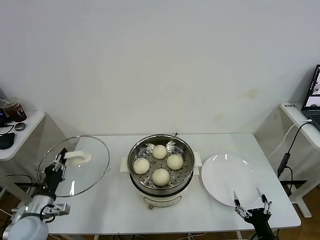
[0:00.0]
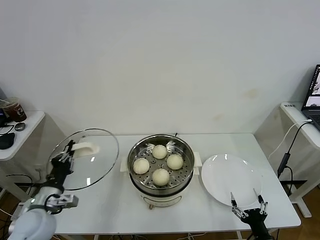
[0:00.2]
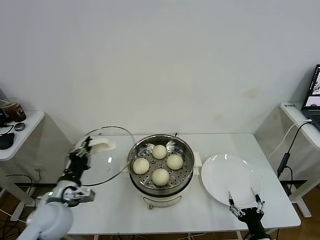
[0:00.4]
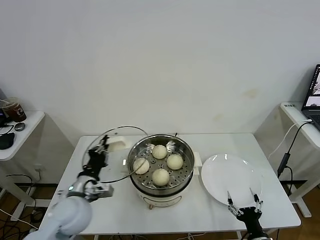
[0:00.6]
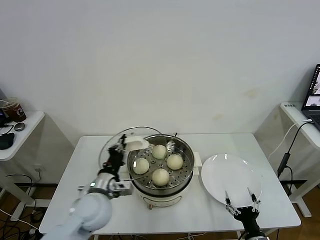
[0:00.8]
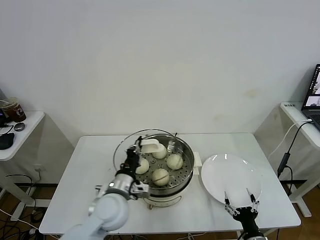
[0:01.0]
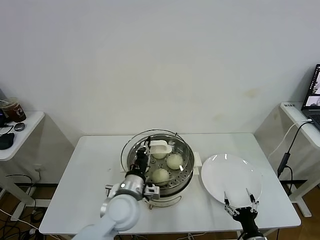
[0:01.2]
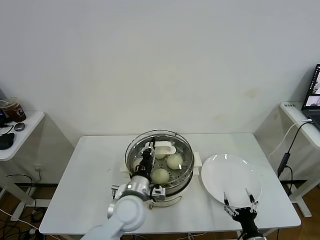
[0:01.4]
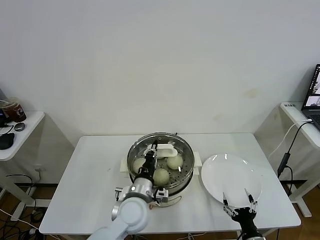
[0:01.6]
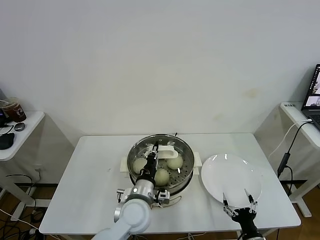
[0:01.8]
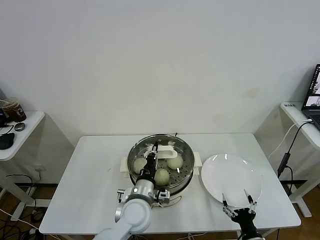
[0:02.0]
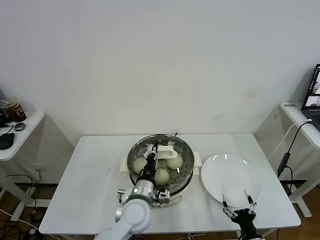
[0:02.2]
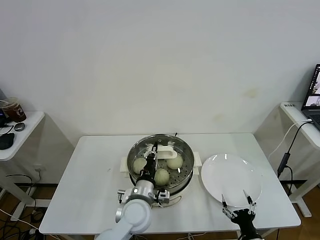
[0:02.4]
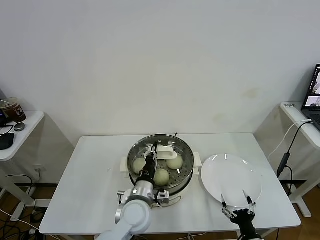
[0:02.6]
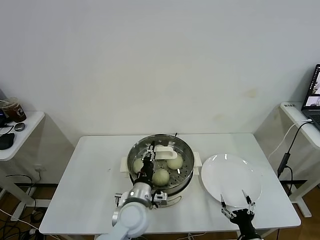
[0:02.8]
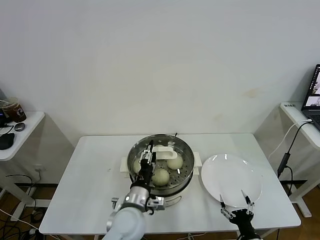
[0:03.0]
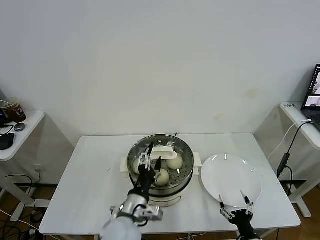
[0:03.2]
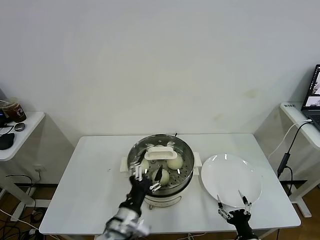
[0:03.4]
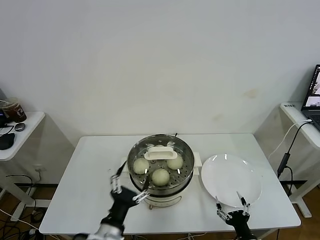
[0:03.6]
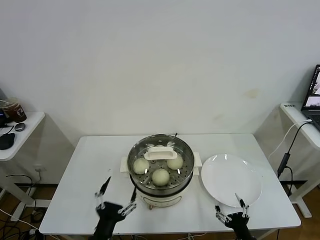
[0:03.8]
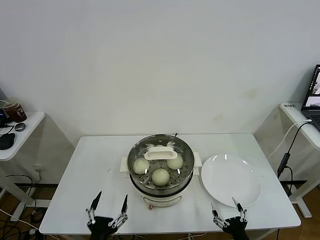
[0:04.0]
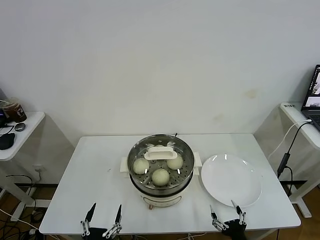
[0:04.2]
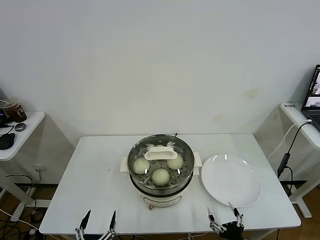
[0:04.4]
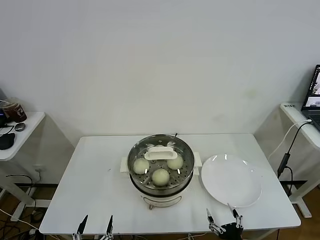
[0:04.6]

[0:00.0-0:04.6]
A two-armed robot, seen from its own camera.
Task of the whole recording: take steamed baozi put them in steamer.
Step, 0:00.0 to 0:03.0: Place the pot lid on the steamer with left gripper.
0:00.0 to 0:01.6: The right gripper ends up roughly 5 cm from where it was, while the left gripper shifts approximately 30 cm to the right.
0:01.6 to 0:03.0: The left gripper opens.
0:03.0 to 0:04.6: The right gripper moves some 5 cm; the left gripper travels backward and to the left by some 25 cm, and opens up.

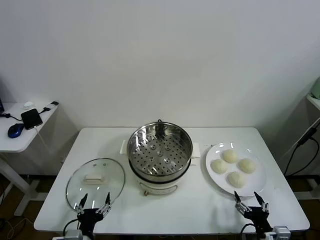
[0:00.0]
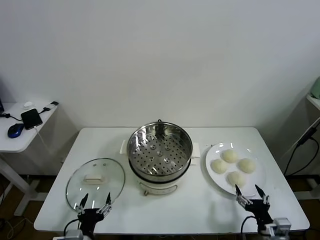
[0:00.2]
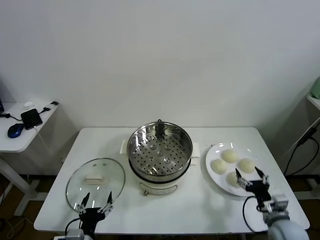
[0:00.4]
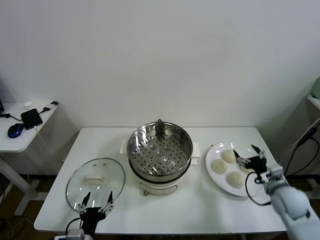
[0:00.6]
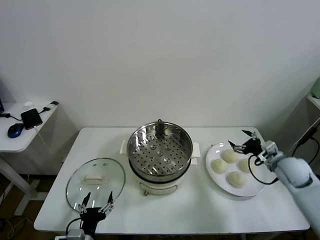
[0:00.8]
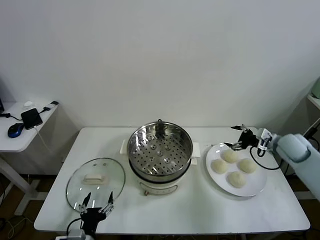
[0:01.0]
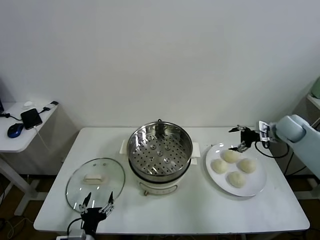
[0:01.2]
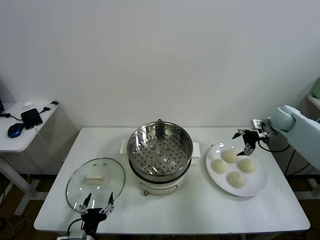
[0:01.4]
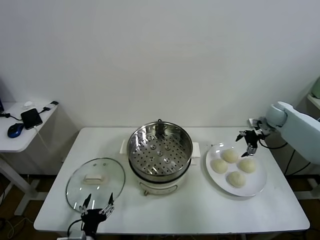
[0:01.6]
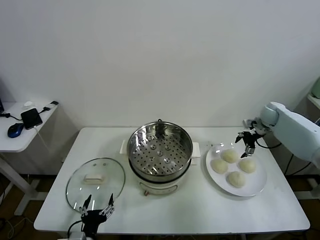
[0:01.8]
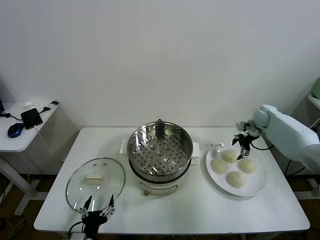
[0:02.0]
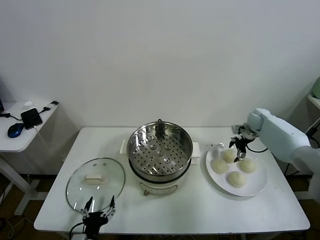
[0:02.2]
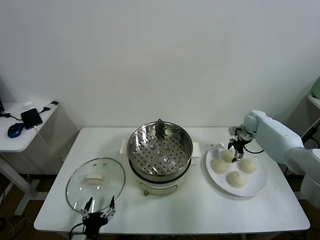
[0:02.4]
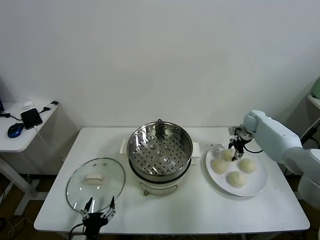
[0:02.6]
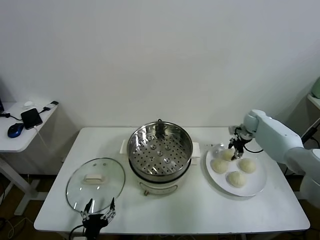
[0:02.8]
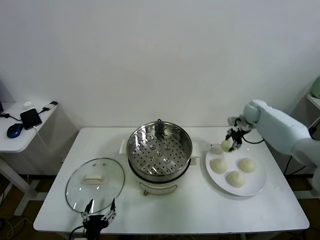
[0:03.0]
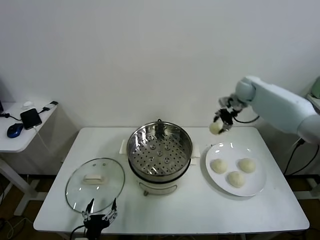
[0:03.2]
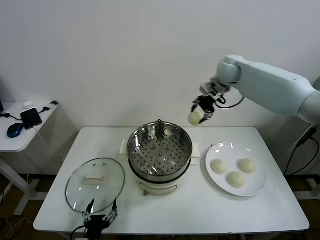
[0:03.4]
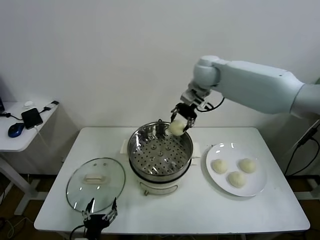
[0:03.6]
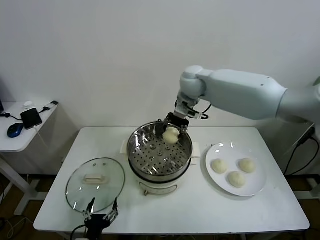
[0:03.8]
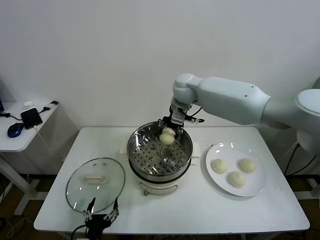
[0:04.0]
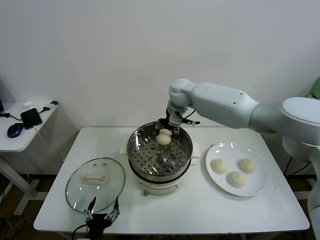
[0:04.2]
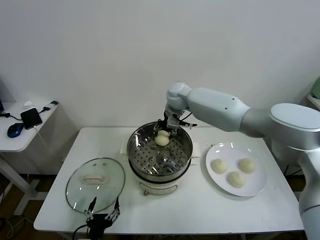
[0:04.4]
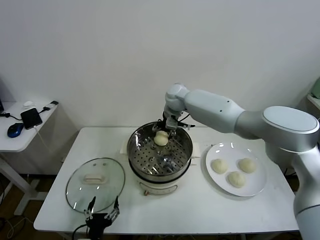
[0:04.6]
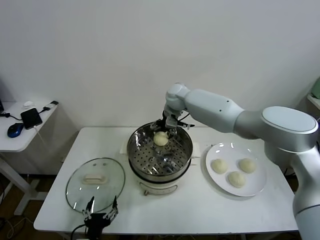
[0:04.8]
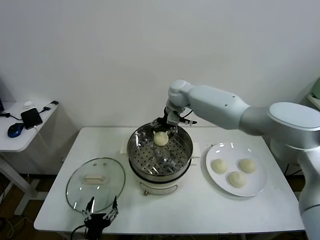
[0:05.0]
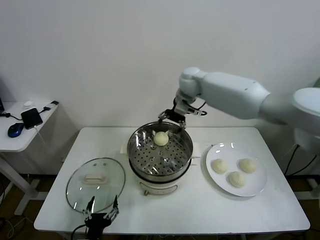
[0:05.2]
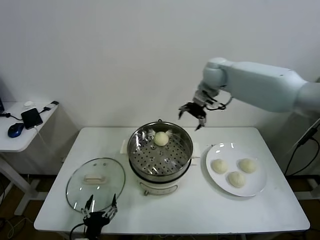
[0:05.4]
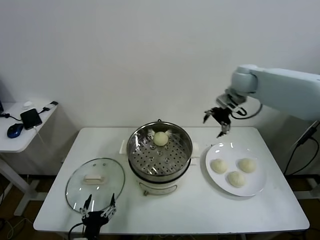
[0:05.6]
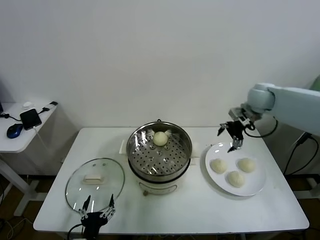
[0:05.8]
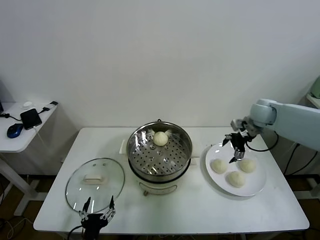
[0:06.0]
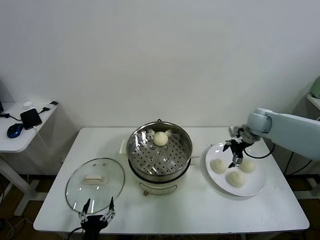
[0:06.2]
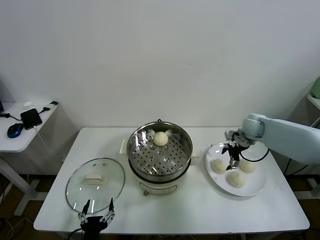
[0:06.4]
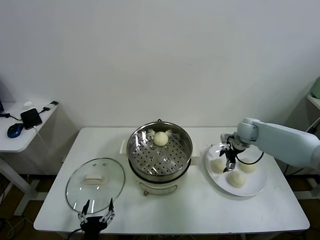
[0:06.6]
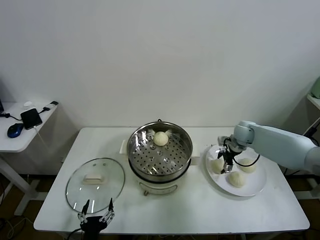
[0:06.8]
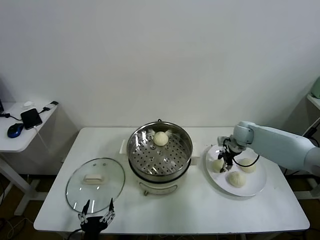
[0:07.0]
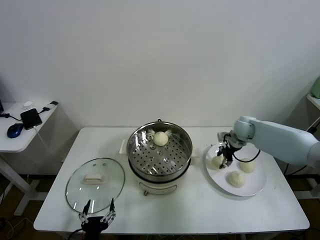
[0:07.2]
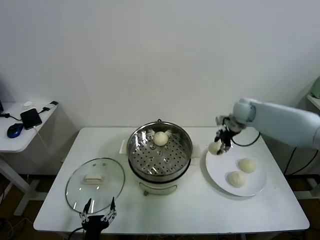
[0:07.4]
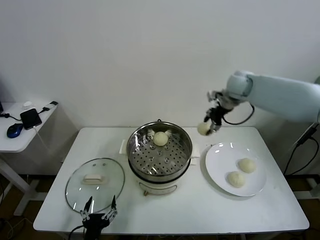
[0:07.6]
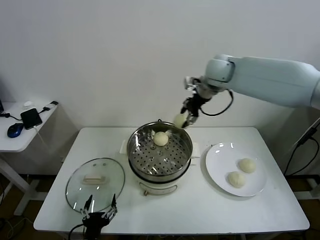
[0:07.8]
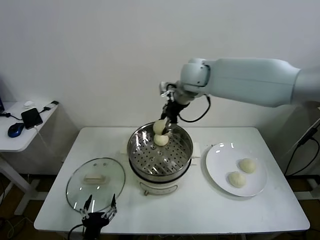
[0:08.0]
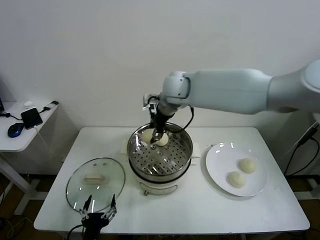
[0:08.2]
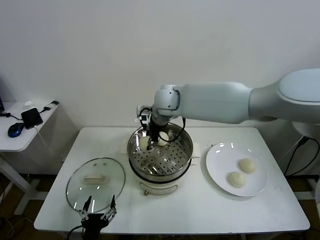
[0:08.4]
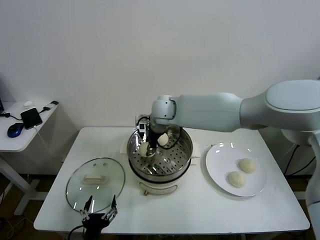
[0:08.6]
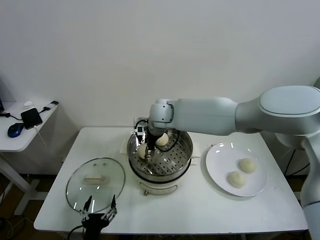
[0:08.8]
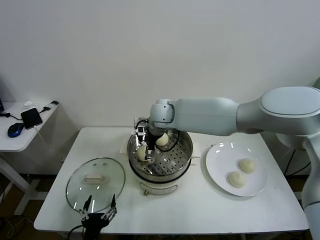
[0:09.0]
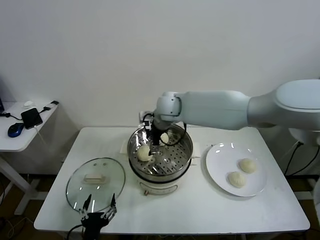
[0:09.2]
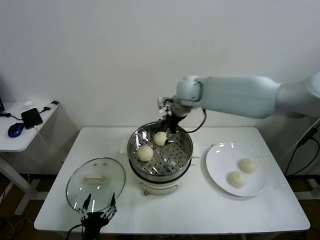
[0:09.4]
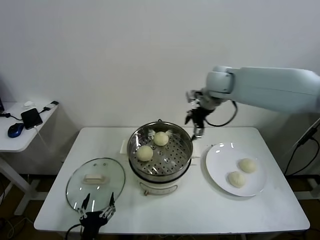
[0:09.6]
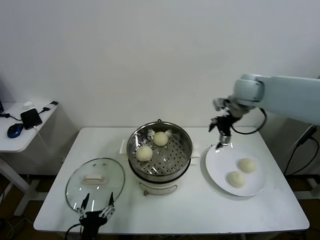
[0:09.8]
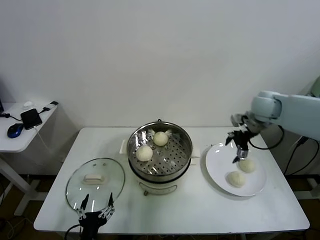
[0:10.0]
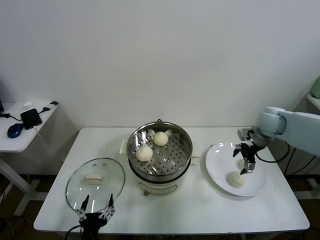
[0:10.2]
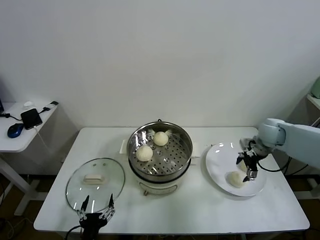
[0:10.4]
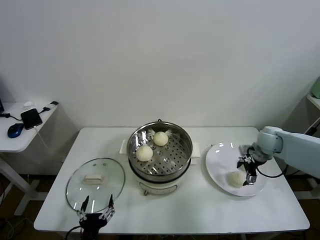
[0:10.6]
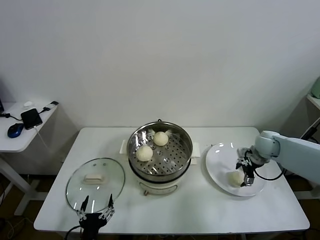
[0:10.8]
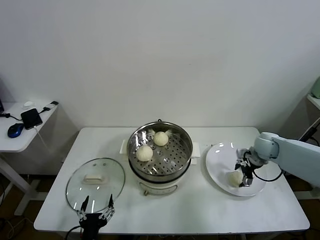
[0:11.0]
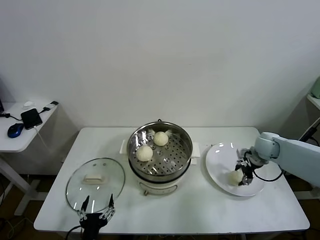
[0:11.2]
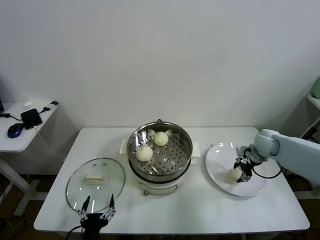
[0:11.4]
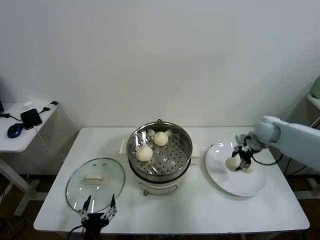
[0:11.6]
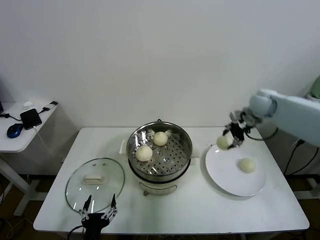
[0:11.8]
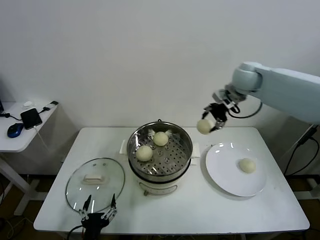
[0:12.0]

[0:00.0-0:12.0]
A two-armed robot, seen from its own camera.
Task of the whole recording: take steamed baozi put them in steamer.
Step, 0:00.0 to 0:02.6: Grasp the baozi in the plate with right gripper.
Step, 0:02.8 to 0:05.0: Place the baozi on the steamer with right gripper.
Step, 0:05.2 to 0:07.0: Grasp the baozi in the plate with right gripper.
Step, 0:07.2 to 0:09.0: Place the baozi on the steamer with right gripper.
Step, 0:09.2 to 0:11.2: Grasp the baozi in the plate with right gripper.
0:01.6 to 0:03.0: The right gripper goes approximately 10 cm to the left, and closes.
0:03.0 to 0:04.4: The right gripper heads to the left, covering some 30 cm.
0:04.4 to 0:06.0: The right gripper shifts approximately 30 cm to the right, and opens.
0:06.0 to 0:07.6: The right gripper moves upward and to the left, roughly 20 cm, and closes up.
0:07.6 to 0:09.0: The right gripper goes roughly 25 cm to the left and downward, and opens up.
0:09.0 to 0:10.4: The right gripper travels to the right by approximately 40 cm.
0:10.4 to 0:12.0: The right gripper travels upward and to the left by some 25 cm, and closes.

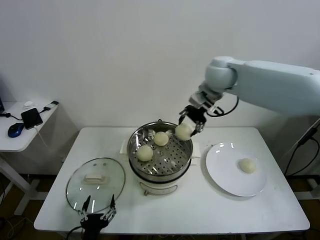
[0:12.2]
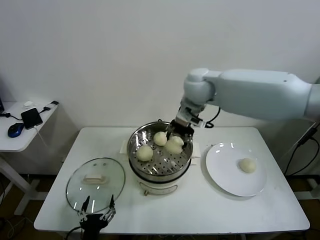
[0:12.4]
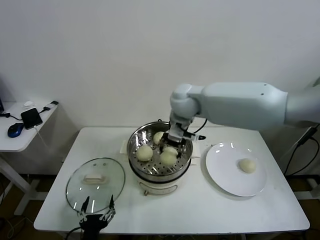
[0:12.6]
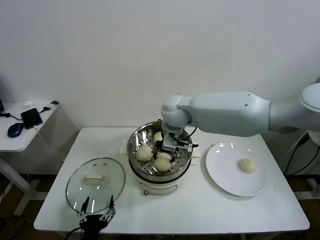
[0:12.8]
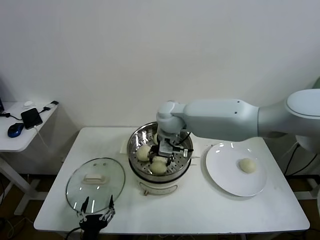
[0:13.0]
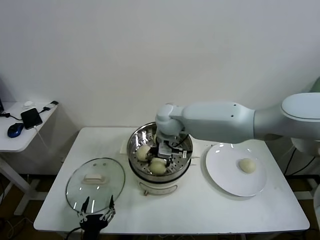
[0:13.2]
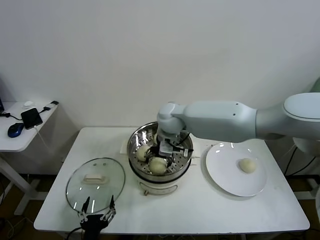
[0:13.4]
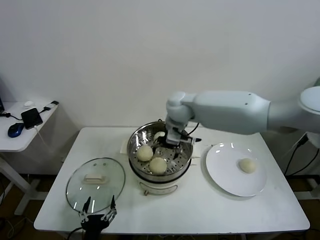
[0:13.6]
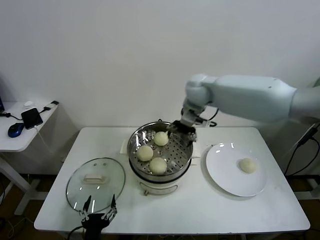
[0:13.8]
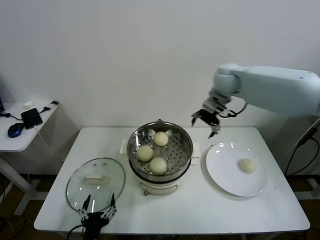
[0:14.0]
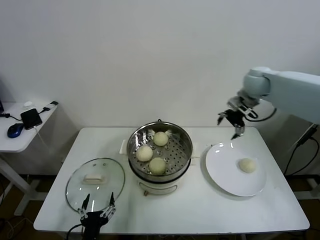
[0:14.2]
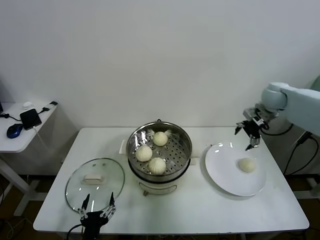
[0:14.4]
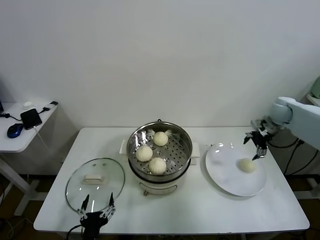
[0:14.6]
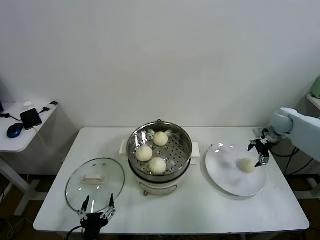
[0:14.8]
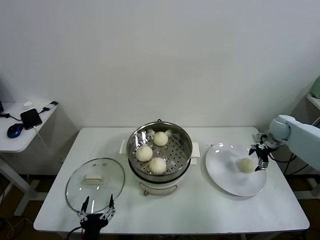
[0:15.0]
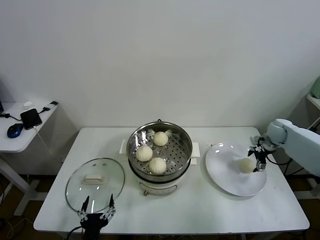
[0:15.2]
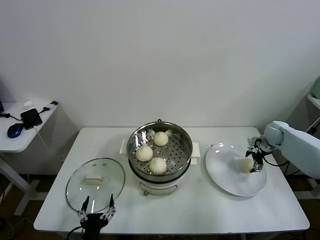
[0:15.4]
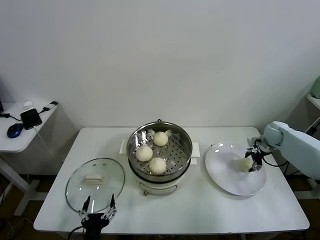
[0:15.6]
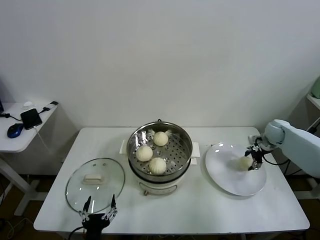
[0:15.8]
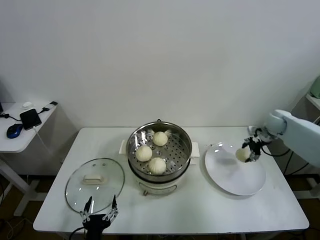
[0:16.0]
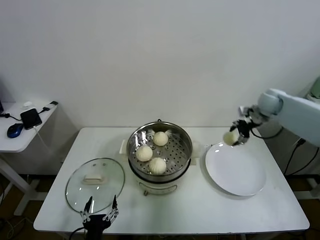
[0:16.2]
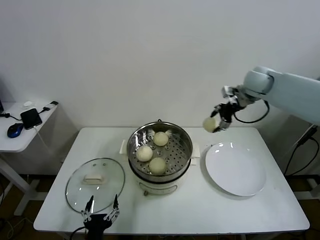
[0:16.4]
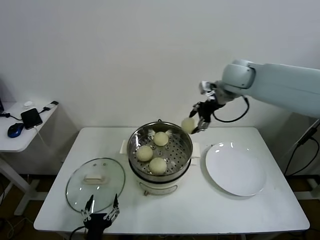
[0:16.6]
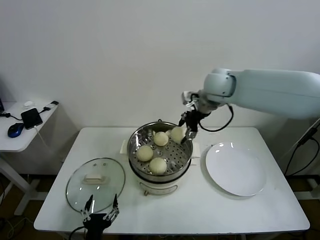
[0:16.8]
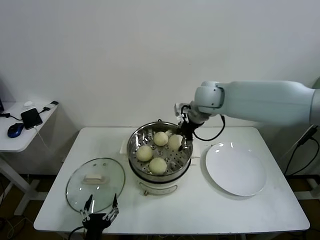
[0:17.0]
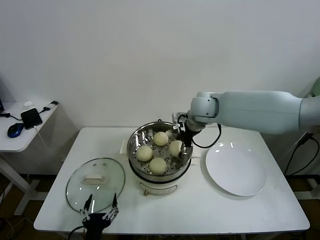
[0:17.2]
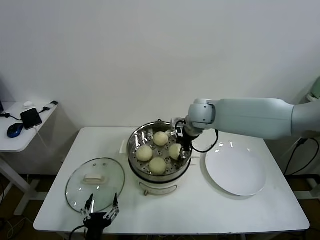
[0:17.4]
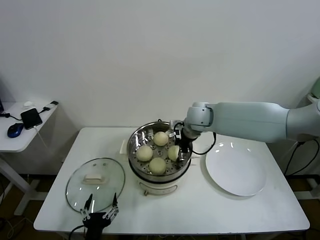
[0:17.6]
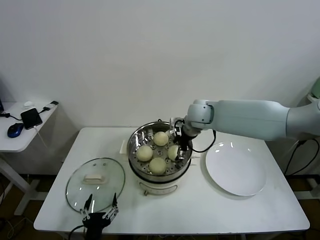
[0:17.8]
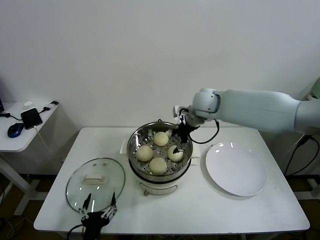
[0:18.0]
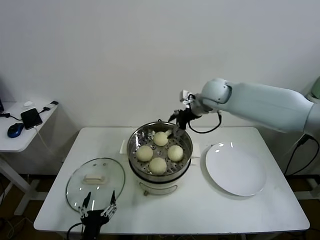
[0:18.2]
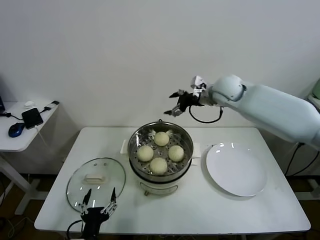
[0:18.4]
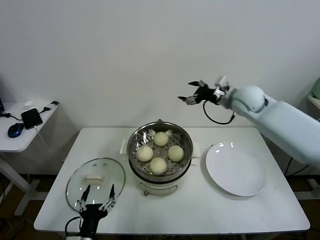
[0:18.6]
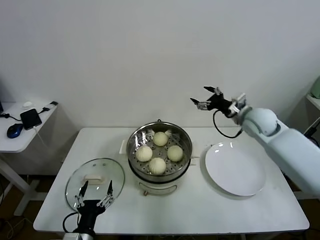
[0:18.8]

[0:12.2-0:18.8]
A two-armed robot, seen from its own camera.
Task of the whole recording: take steamed baozi put them in steamer.
Step, 0:12.2 to 0:13.4: Place the baozi on the steamer with right gripper.
Step, 0:13.6 to 0:15.6: Grasp the baozi in the plate with right gripper.
Step, 0:15.8 to 0:17.8: Place the baozi on the steamer with right gripper.
0:12.2 to 0:13.8: The right gripper opens its fingers.
0:13.8 to 0:15.4: The right gripper moves to the right and downward, approximately 40 cm.
0:15.4 to 0:17.2: The right gripper moves to the left and upward, about 35 cm, and closes up.
0:17.2 to 0:18.8: The right gripper travels to the right by approximately 20 cm, and opens up.
